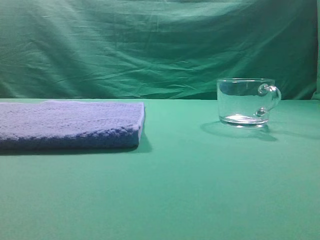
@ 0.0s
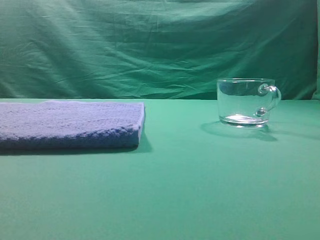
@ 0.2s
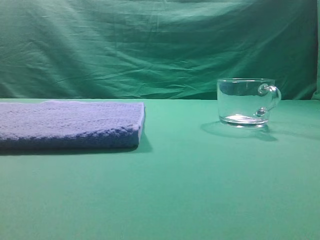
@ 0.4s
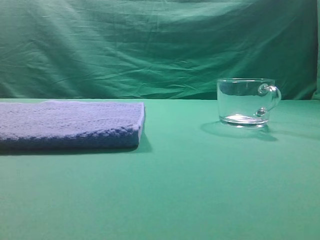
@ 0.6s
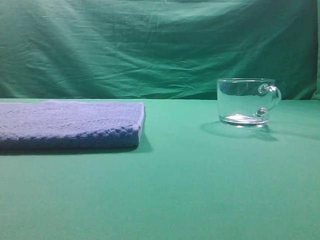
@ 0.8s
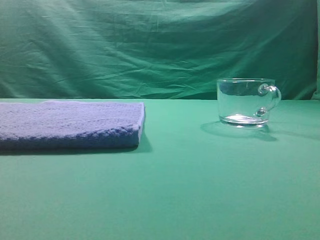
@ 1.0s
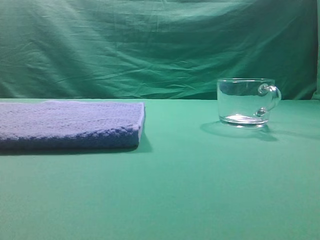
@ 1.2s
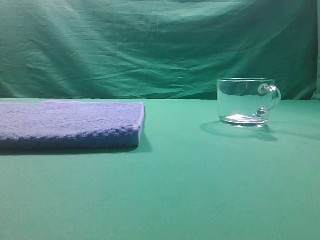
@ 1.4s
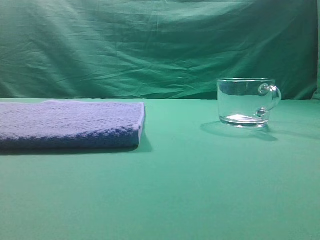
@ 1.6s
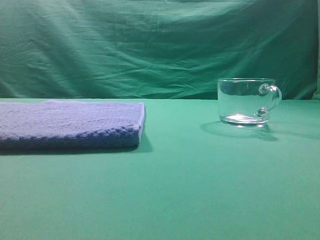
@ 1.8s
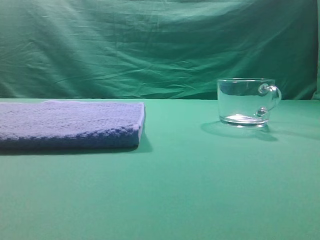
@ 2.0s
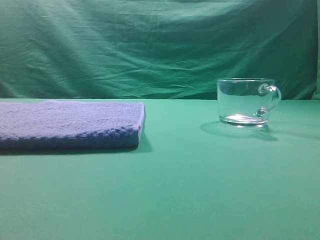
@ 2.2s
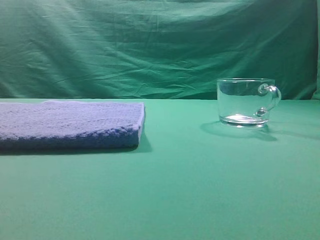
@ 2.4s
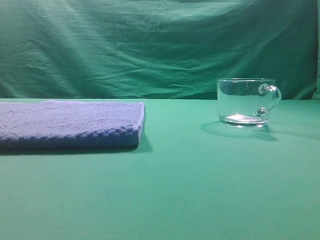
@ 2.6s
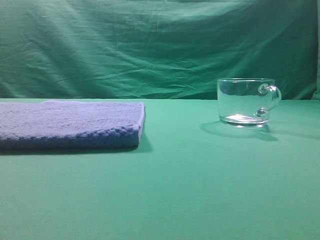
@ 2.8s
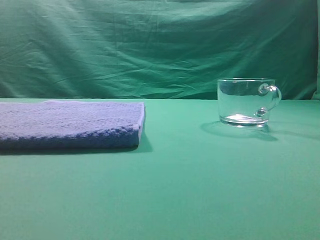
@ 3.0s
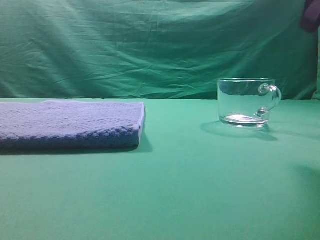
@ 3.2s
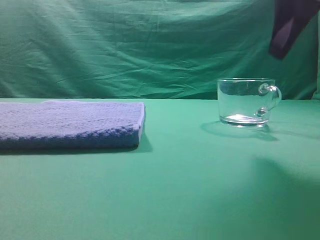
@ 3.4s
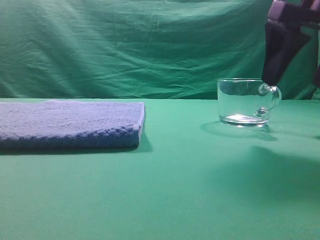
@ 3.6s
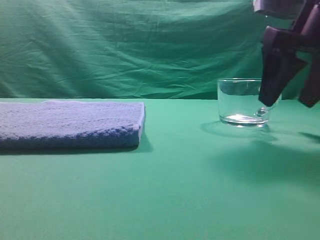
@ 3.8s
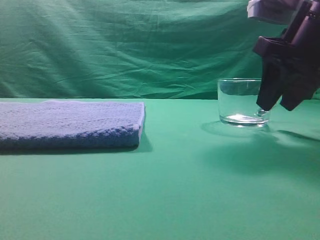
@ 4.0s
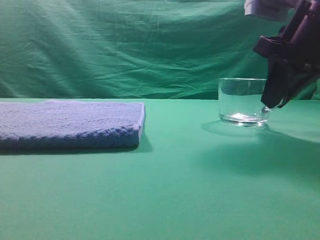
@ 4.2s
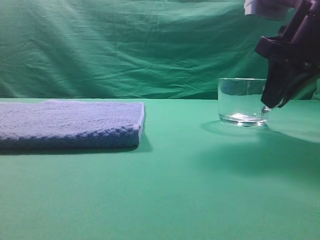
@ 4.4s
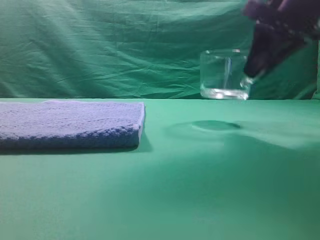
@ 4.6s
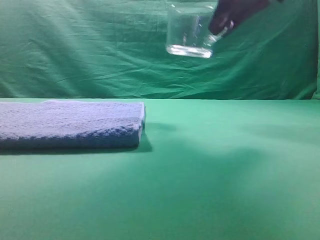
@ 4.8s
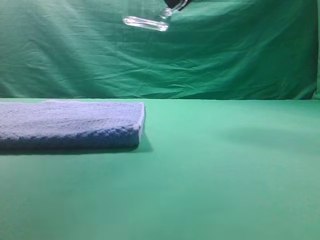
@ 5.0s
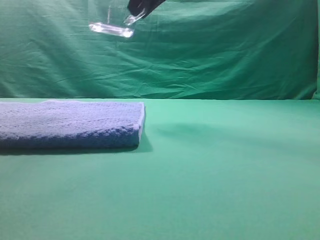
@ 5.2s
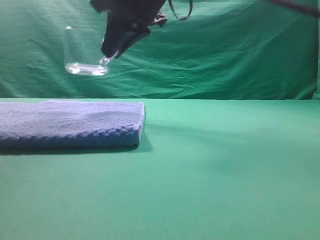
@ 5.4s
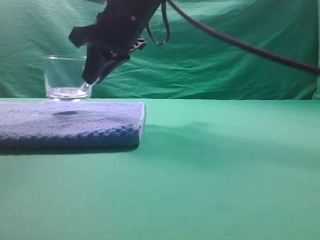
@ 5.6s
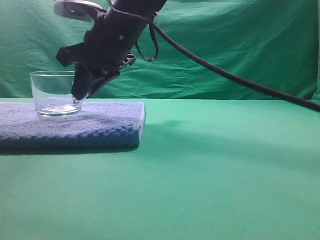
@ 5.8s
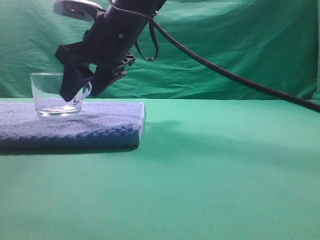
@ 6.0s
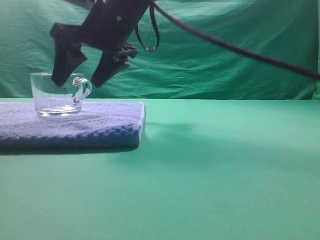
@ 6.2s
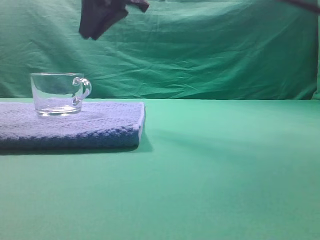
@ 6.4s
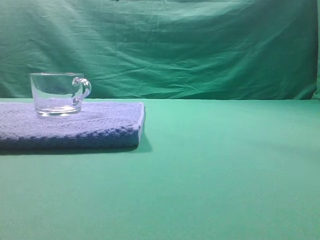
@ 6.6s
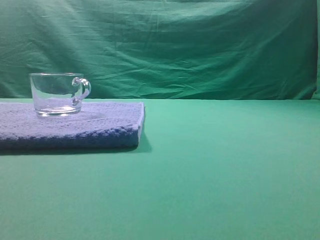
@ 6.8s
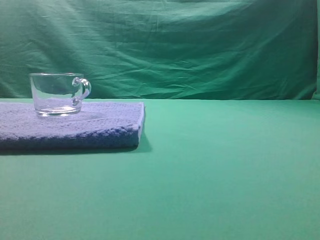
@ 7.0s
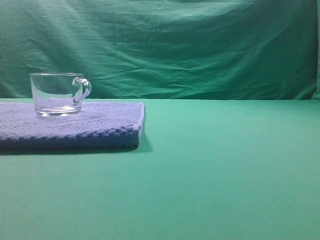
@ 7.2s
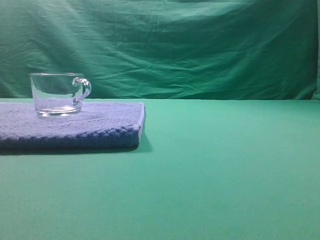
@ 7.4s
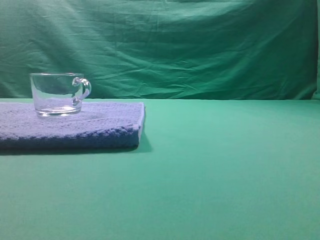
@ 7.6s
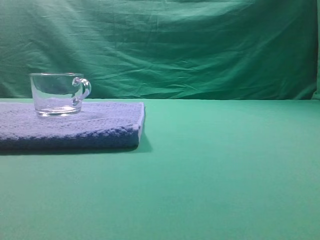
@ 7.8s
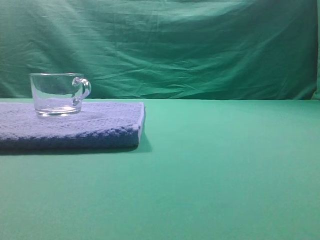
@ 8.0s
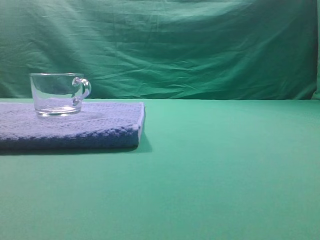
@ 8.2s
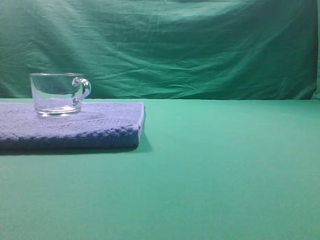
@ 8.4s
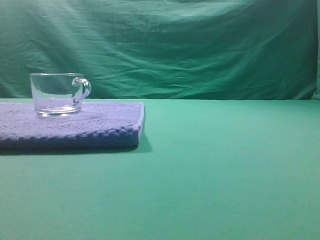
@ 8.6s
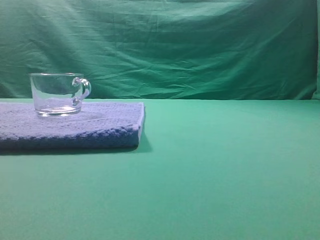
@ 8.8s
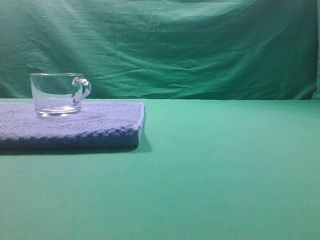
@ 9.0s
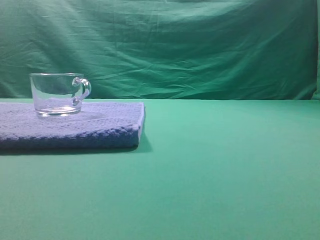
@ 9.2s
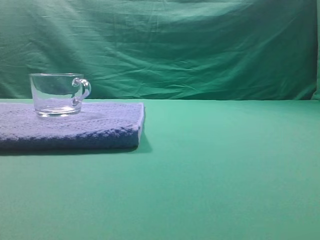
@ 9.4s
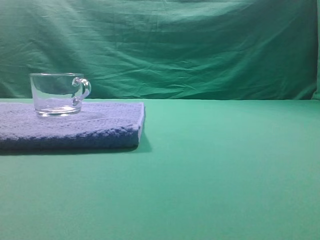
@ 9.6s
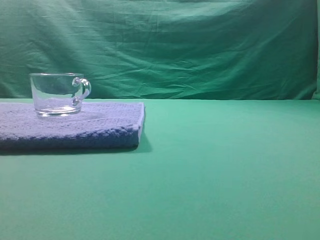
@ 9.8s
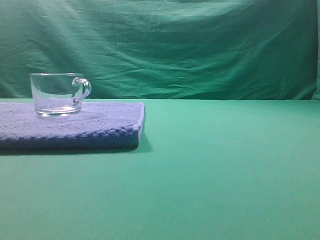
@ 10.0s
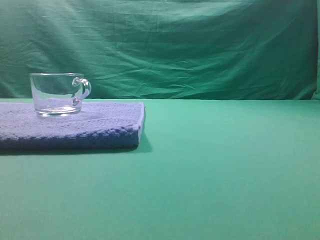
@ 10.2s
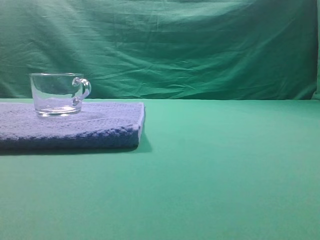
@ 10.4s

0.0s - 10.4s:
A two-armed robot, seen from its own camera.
Task of the whole recording: grasp the transparent glass cup and place it within the blue towel.
Step, 0.0s - 4.4s: Grasp the transparent glass cup.
Step, 4.6s - 6.0s: Place the glass cup on the blue zone.

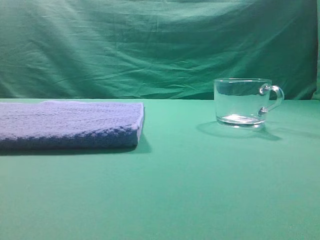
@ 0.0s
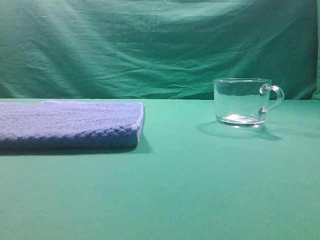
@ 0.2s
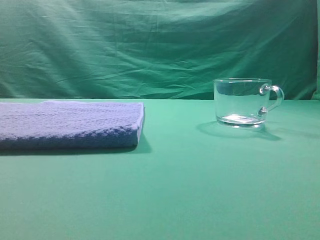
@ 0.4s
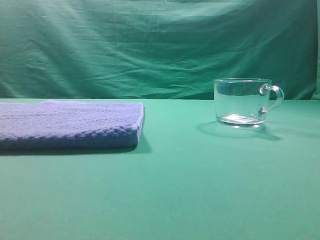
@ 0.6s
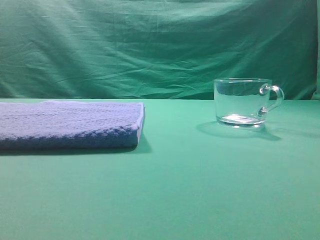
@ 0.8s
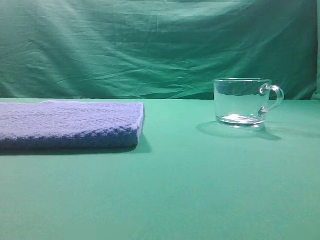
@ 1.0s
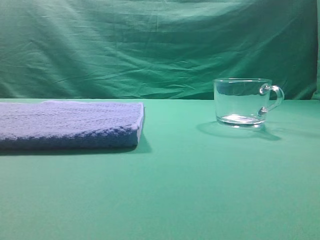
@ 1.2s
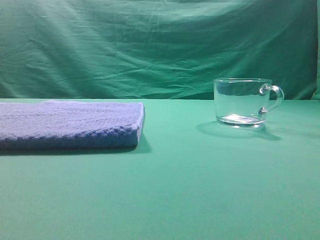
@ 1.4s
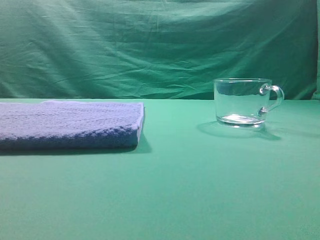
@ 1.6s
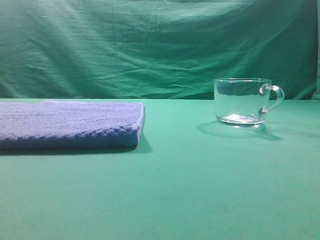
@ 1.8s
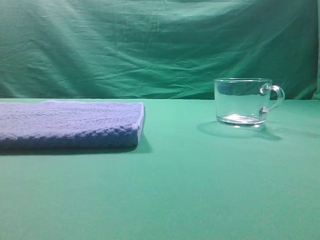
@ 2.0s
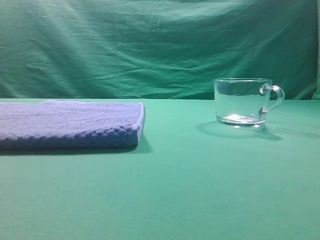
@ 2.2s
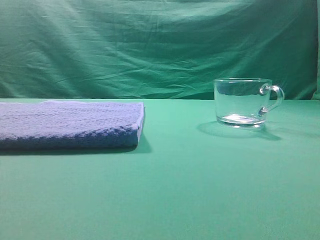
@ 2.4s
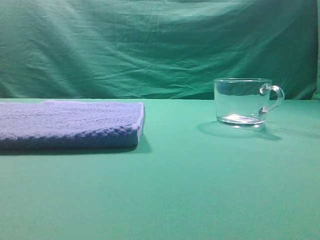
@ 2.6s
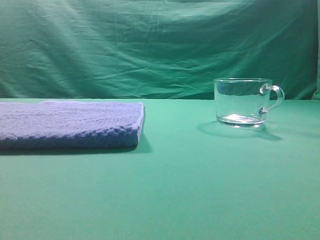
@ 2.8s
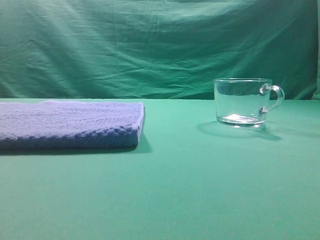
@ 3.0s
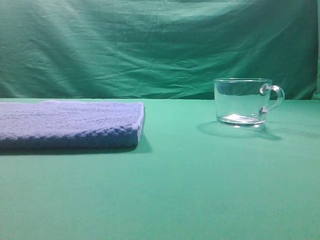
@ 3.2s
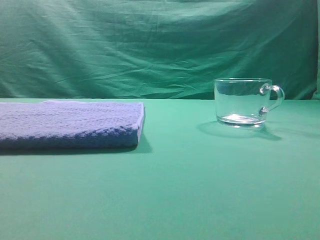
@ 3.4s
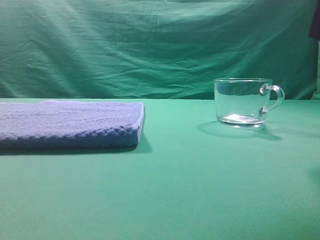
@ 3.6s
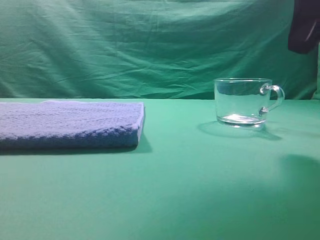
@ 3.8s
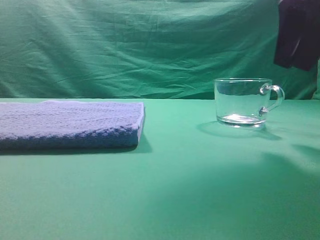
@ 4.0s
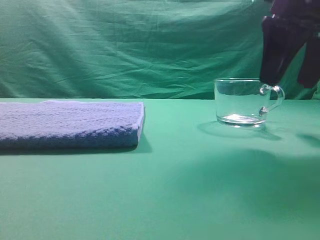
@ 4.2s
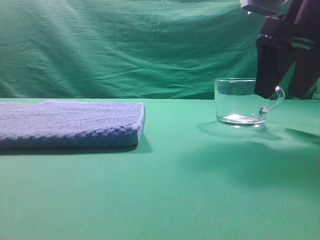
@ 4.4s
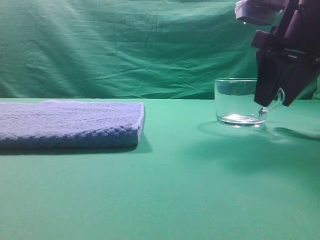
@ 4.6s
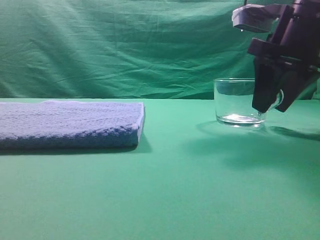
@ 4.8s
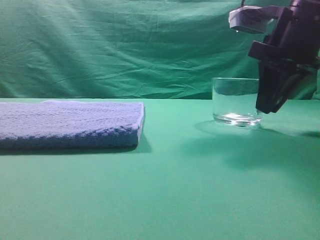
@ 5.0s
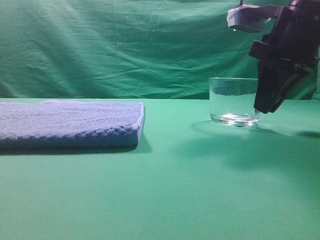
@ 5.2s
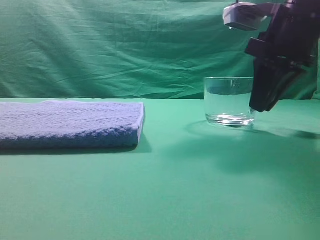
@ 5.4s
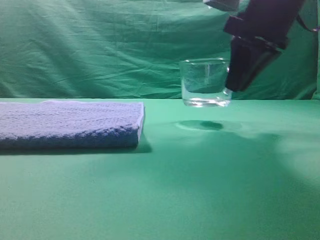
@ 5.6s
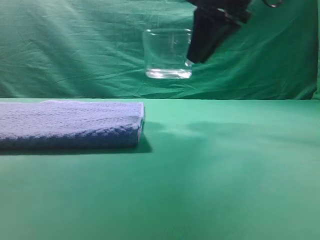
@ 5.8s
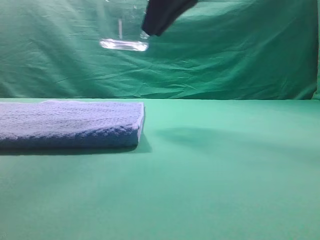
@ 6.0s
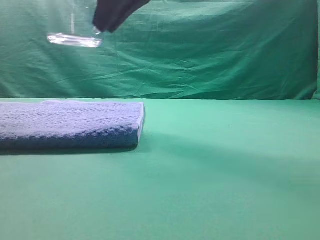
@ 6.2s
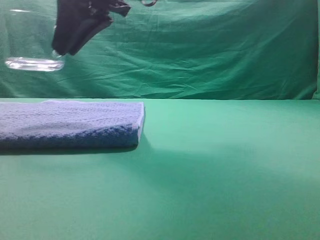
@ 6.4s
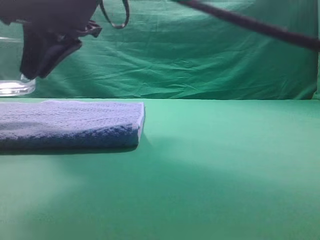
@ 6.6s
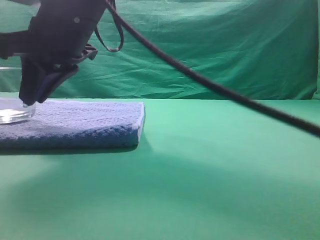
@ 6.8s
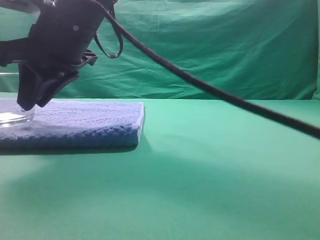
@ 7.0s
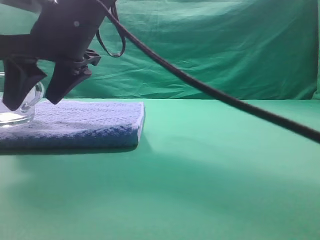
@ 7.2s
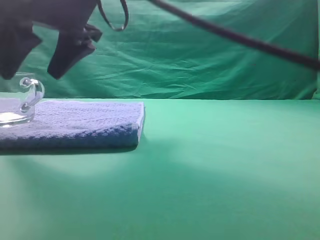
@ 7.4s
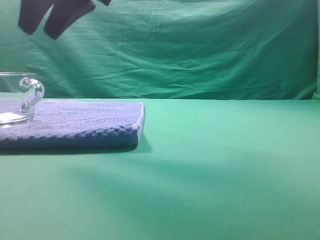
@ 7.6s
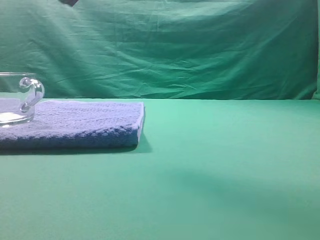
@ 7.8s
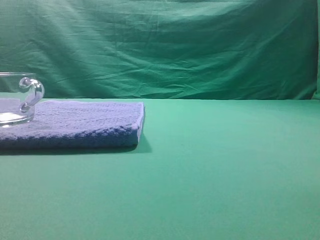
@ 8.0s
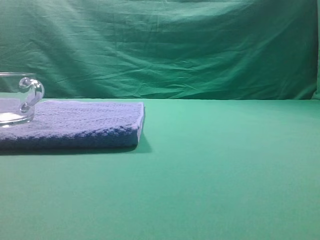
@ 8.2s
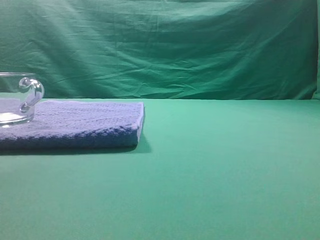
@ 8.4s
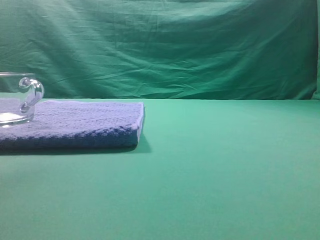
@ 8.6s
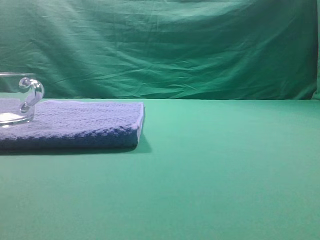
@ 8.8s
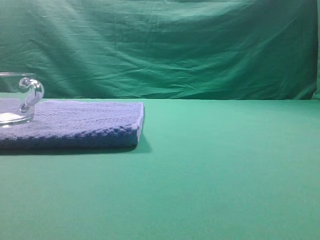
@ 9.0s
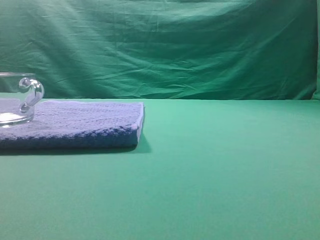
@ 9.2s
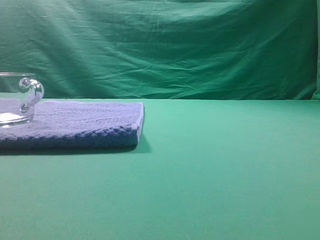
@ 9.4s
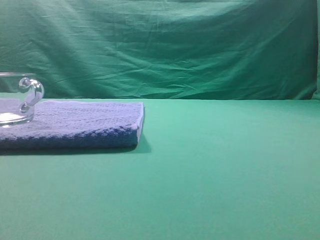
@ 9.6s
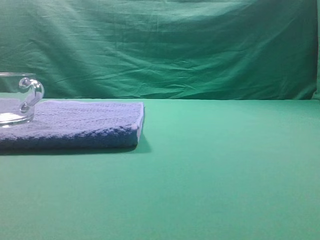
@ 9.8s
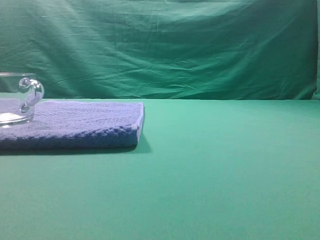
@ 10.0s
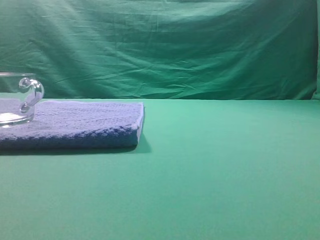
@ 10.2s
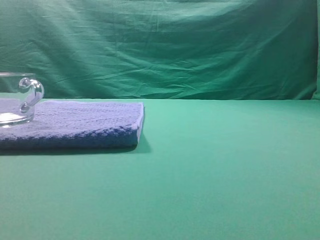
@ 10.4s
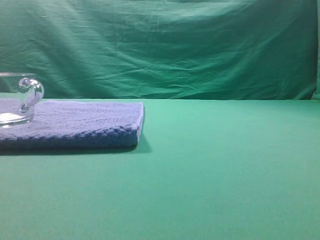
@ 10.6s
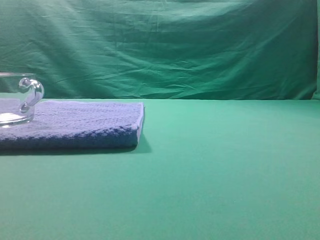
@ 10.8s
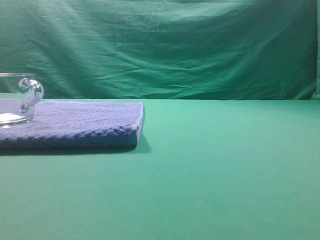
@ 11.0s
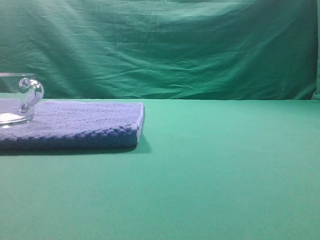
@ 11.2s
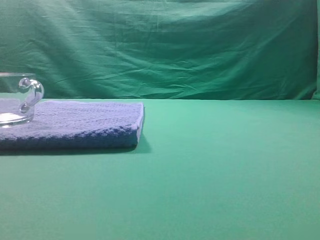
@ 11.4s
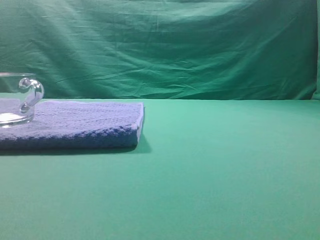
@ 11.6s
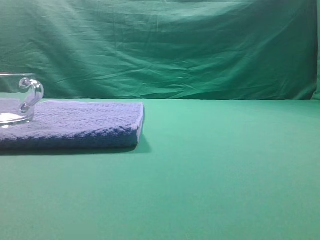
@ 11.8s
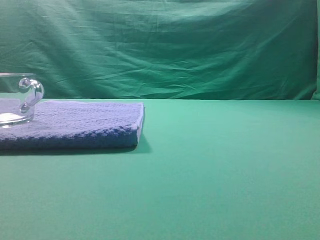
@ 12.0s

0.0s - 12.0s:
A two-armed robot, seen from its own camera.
Task of the whole recording: grasp the transparent glass cup and place it within the blue towel.
Step, 0.0s - 5.4s: Grasp the transparent glass cup.
Step, 5.6s - 7.4s: Place the glass cup on the blue zone.
